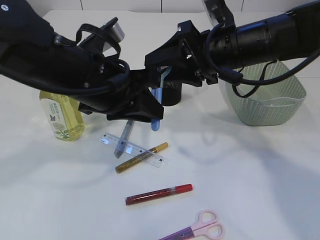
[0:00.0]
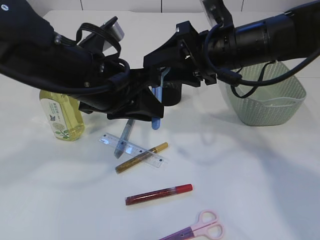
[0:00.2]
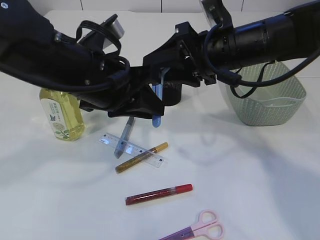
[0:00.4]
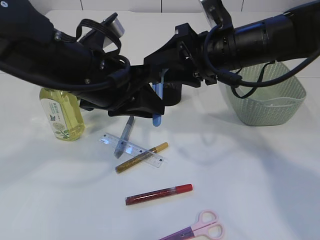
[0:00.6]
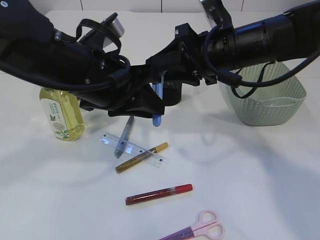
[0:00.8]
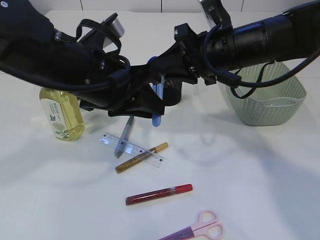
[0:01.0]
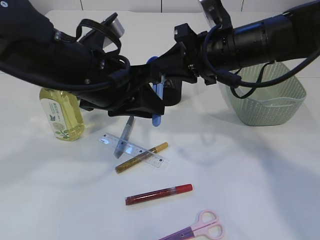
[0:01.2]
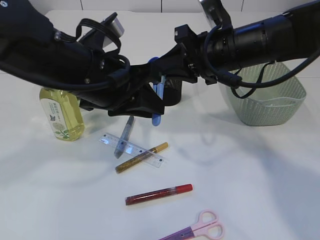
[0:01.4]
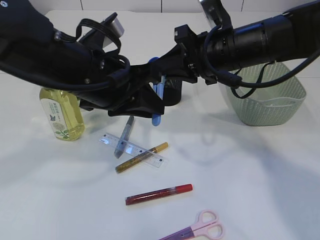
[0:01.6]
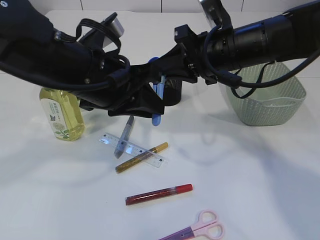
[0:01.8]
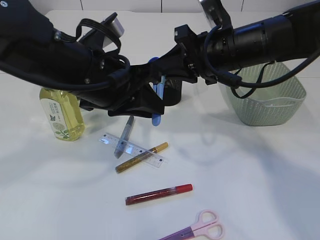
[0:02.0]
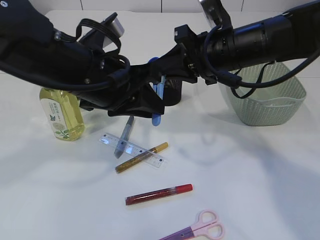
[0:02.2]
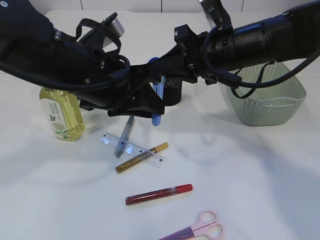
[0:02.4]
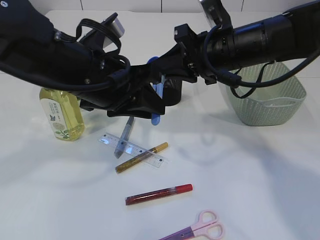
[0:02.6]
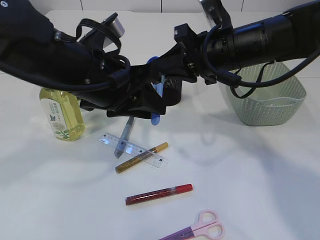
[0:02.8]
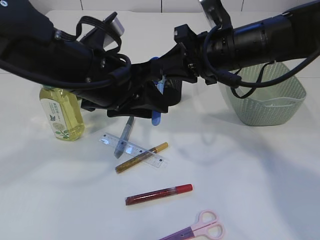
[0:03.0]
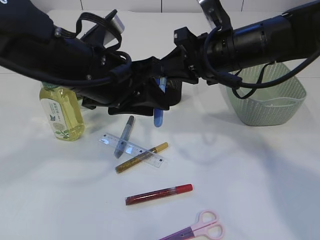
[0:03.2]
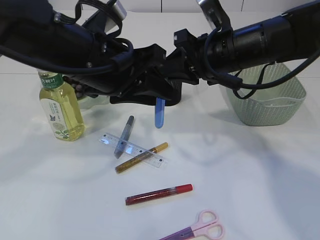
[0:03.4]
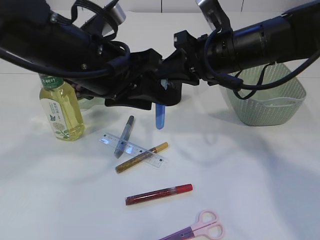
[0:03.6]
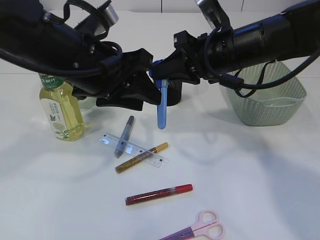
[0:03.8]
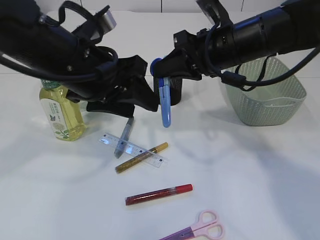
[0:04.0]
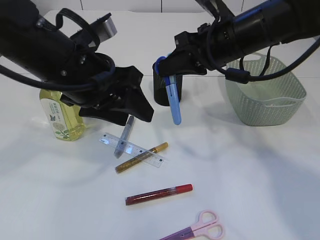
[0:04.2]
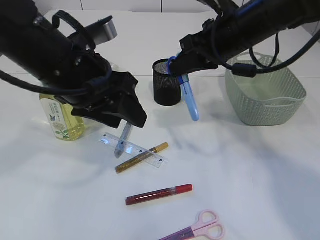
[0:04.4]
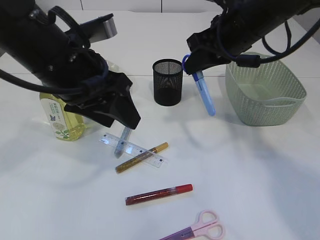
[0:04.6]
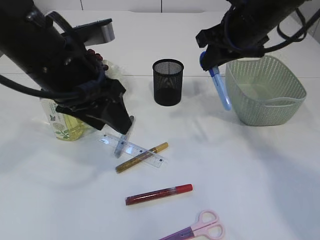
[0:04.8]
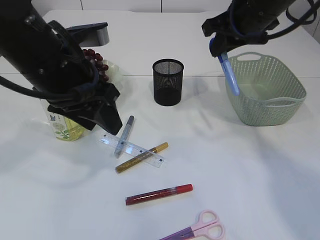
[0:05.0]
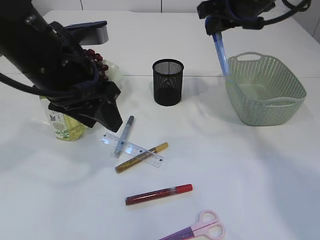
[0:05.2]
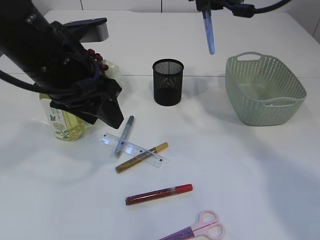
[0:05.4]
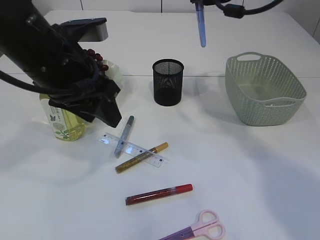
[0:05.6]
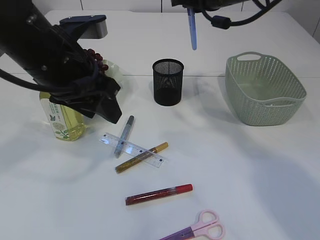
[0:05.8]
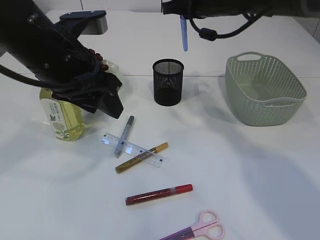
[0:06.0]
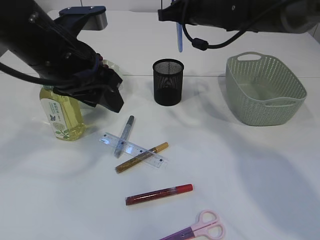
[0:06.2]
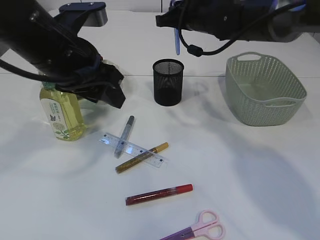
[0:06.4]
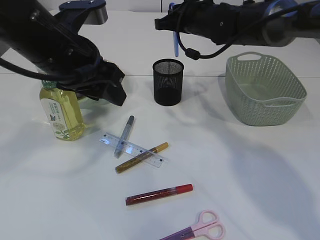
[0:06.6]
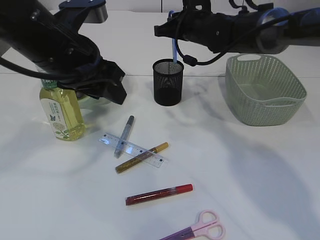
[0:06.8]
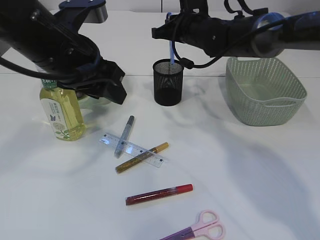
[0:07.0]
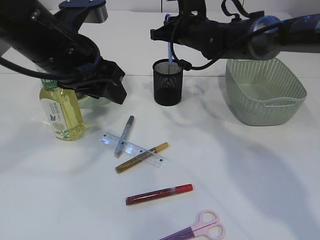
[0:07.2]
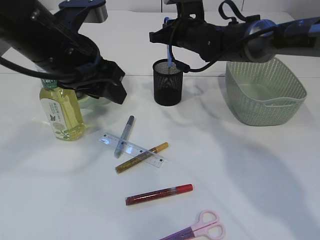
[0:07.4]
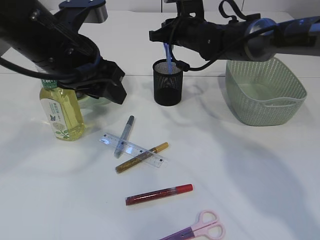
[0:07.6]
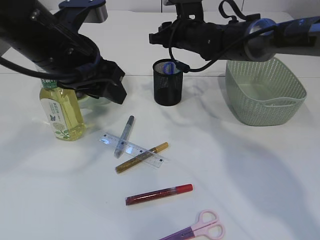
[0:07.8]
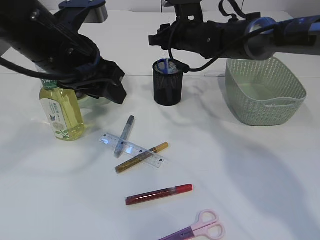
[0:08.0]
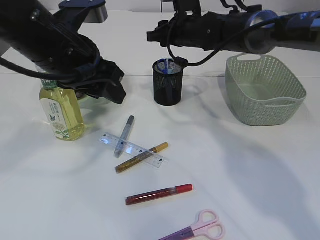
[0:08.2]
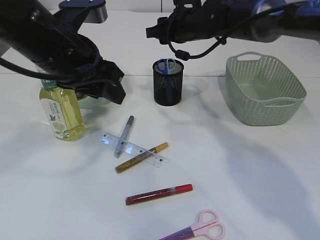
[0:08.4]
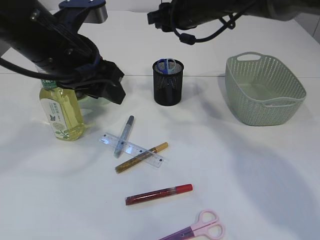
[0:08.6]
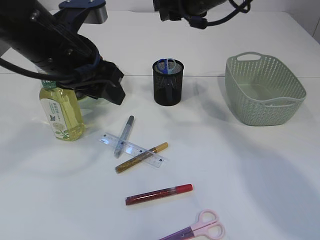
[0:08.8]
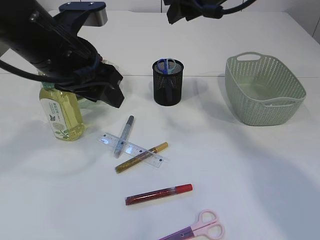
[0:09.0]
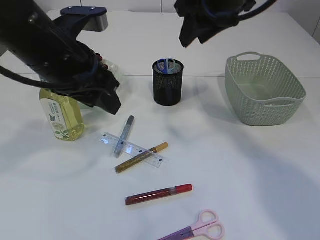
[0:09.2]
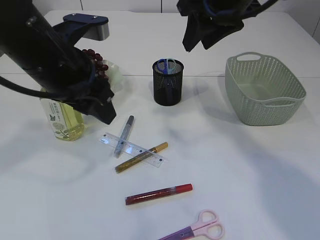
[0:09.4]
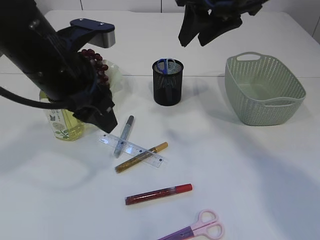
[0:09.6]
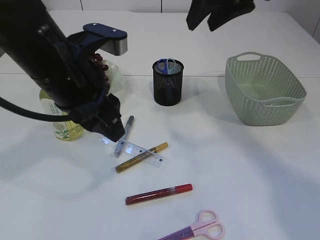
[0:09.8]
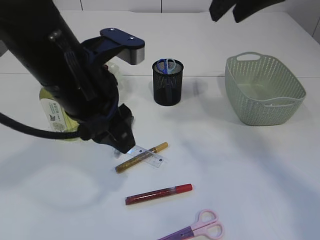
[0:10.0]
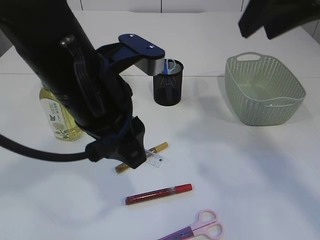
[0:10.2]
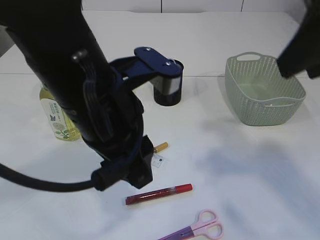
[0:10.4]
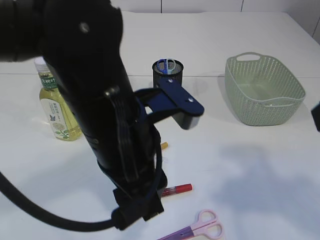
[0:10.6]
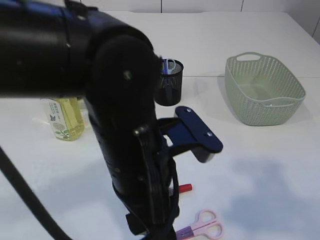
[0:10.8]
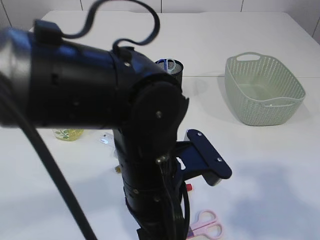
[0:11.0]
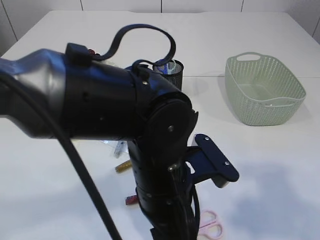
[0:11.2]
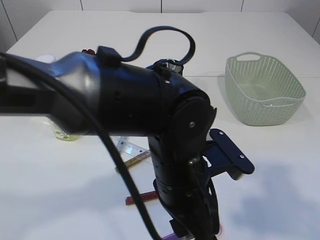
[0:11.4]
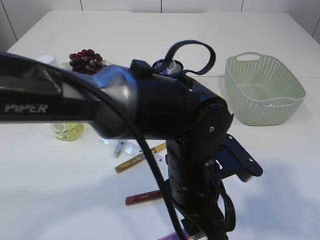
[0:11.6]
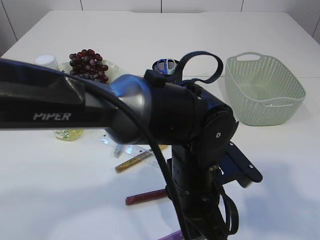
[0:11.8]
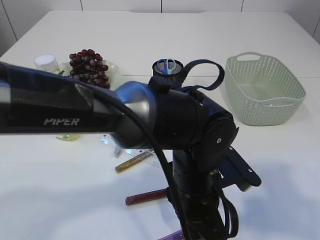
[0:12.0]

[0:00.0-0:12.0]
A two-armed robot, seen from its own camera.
Step, 0:00.0 to 0:04.6: Hand over the blue scissors.
Step, 0:04.8 to 0:08.4: Place the blue scissors into the pen holder.
0:00.0 to 0:01.6: The right gripper closes.
0:01.6 to 0:03.0: Both grippers stay put.
0:03.0 to 0:04.4: The left gripper opens its fingers.
0:04.4 to 0:06.0: The right gripper is displaced forward by roughly 10 cm.
0:06.0 to 0:07.6: The right gripper goes about 10 cm downward.
0:07.6 to 0:09.0: The right gripper shifts roughly 15 cm upward and backward.
0:09.0 to 0:10.4: The left gripper goes some 10 cm backward and to the right; the right gripper shifts roughly 20 cm backward.
0:10.4 to 0:12.0: The left gripper travels downward and to the right by some 20 cm, while the right gripper shifts roughly 10 cm backward.

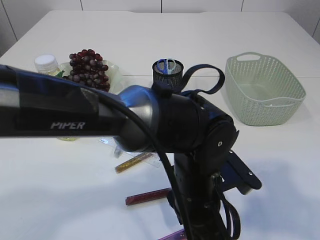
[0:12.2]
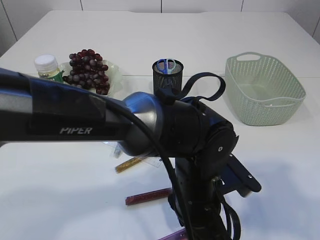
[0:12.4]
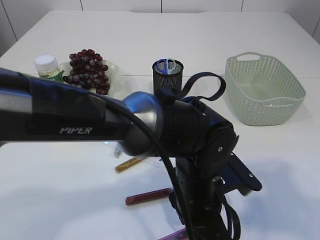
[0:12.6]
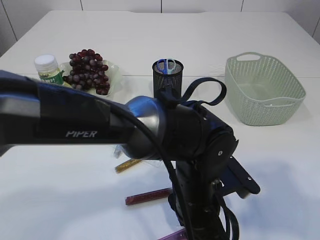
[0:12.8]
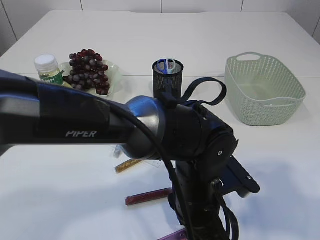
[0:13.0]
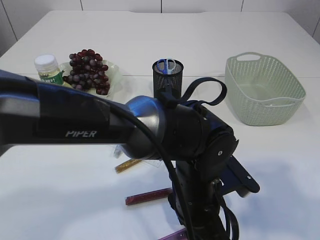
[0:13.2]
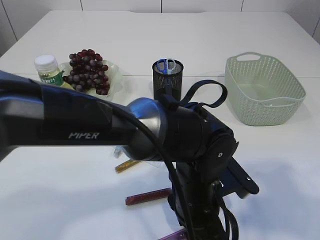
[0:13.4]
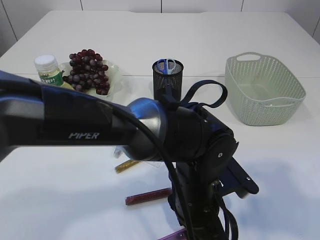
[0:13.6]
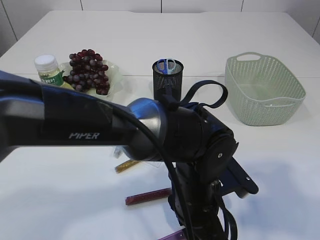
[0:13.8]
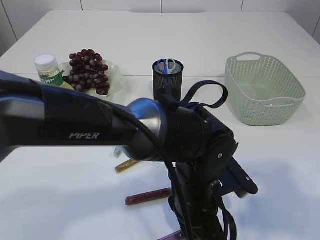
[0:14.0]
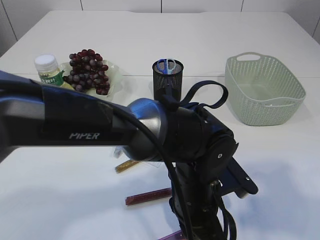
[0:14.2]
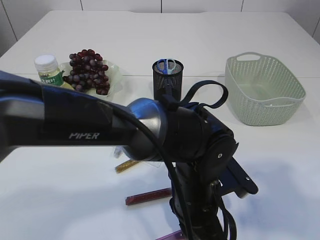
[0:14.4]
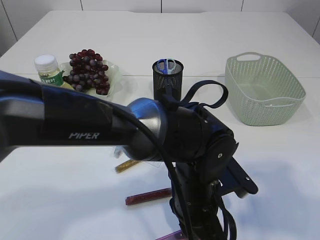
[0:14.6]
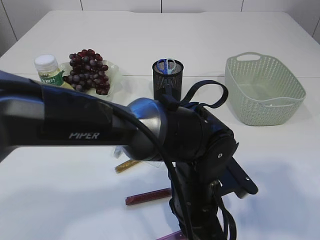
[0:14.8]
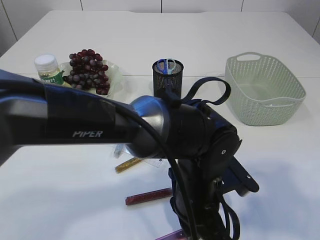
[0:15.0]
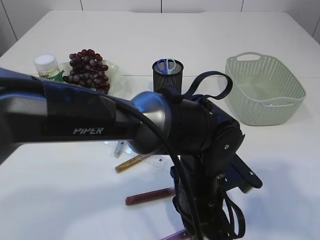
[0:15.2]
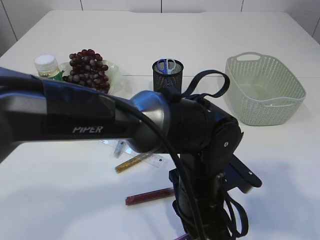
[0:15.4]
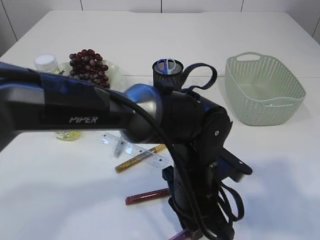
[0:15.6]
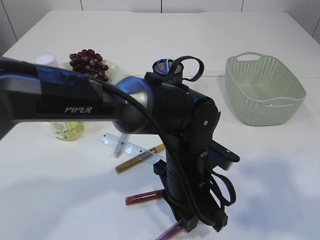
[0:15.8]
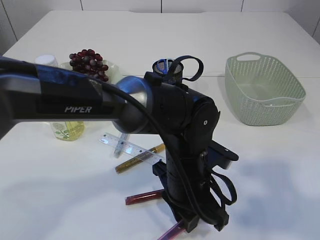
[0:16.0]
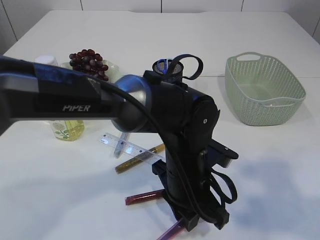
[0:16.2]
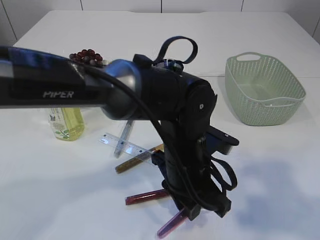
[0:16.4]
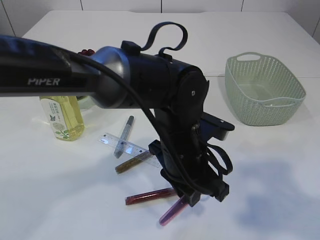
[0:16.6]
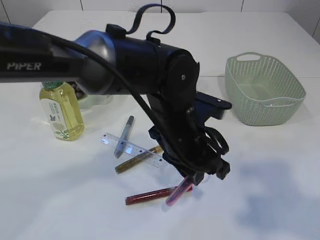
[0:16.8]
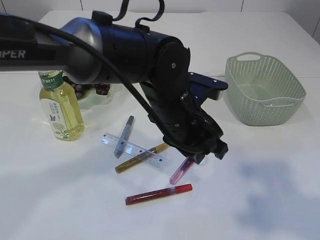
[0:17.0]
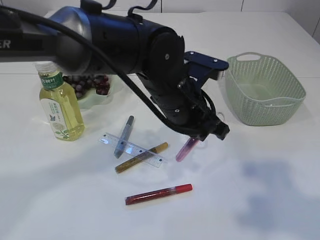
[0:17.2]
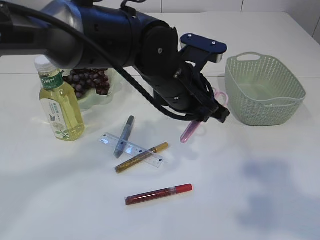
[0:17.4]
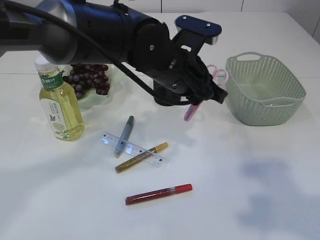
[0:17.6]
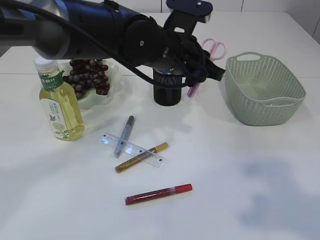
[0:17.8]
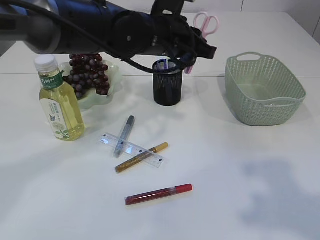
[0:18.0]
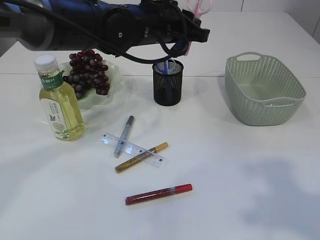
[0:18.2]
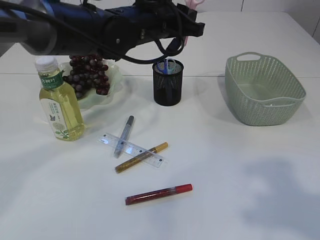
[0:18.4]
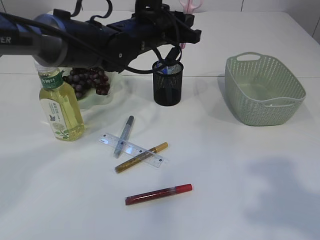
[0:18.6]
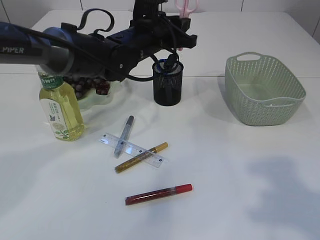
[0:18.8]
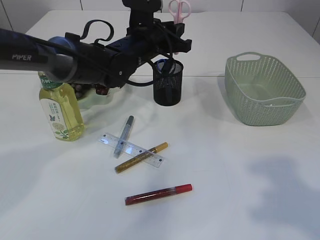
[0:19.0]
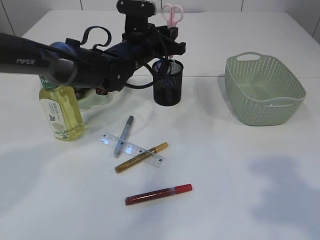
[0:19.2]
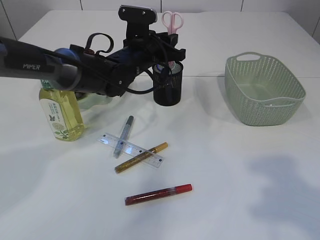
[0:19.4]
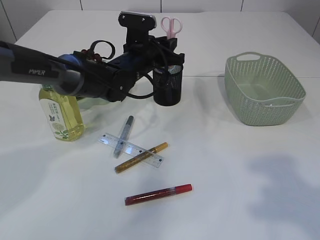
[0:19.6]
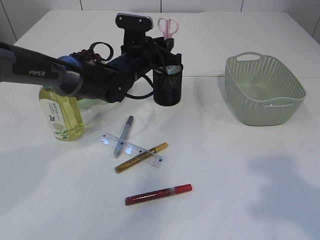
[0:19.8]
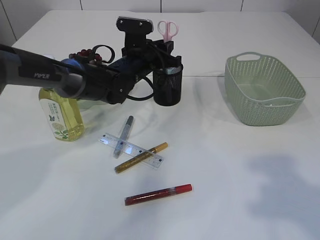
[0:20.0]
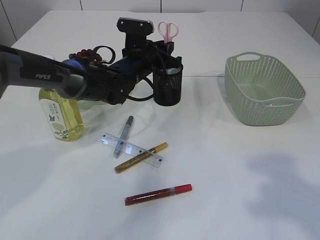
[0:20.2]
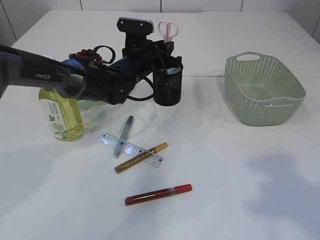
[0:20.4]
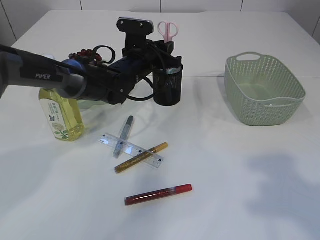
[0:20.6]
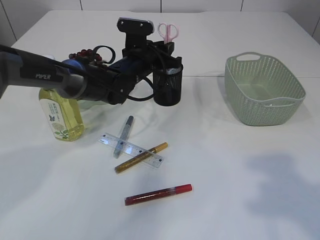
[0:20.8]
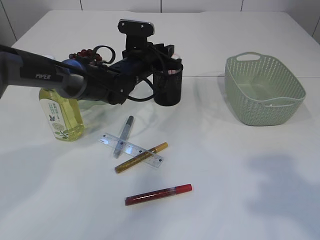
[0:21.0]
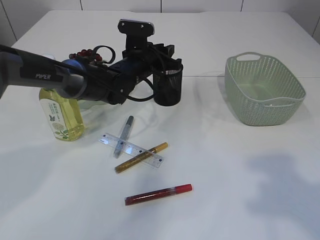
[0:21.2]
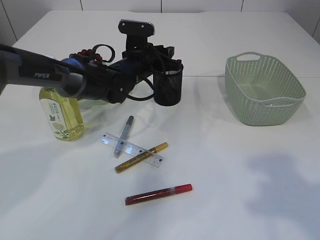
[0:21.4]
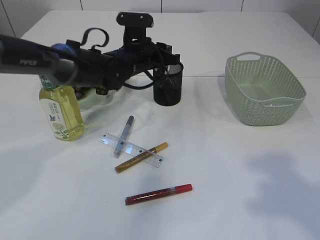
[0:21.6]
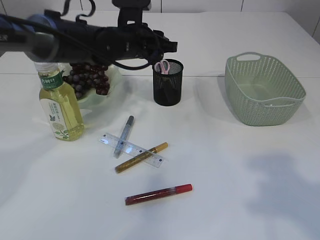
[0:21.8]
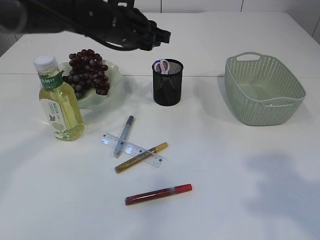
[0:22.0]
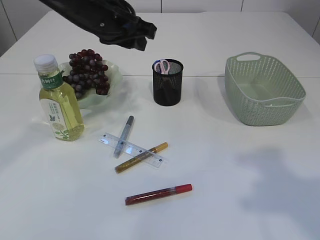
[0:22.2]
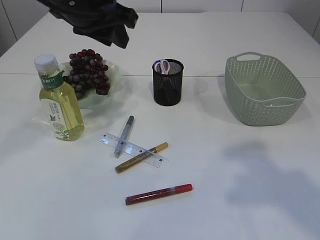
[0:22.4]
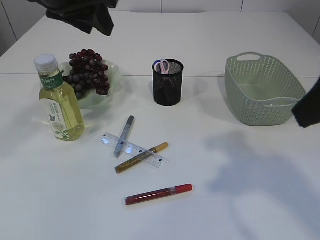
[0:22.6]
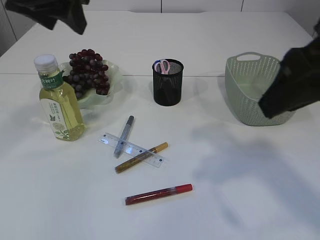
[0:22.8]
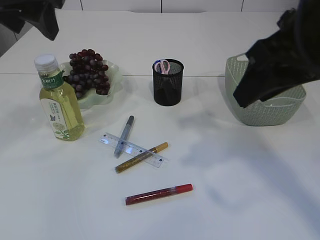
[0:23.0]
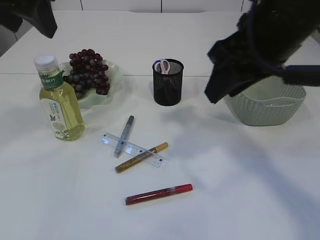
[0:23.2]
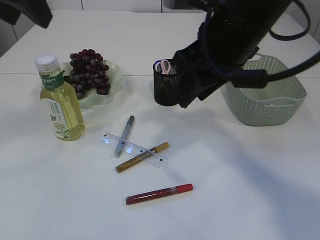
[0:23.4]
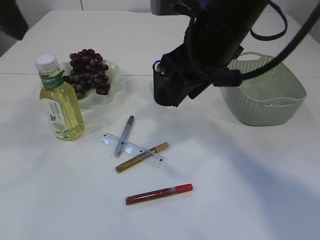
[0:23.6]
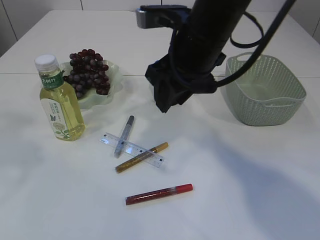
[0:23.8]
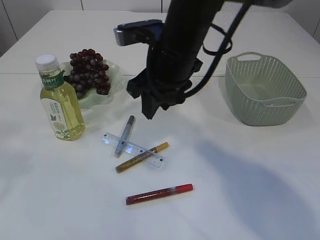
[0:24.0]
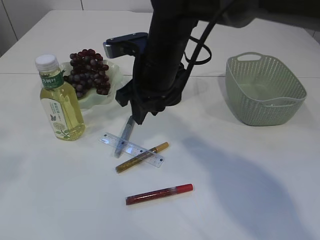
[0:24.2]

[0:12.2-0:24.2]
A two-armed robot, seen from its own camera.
Step, 0:12.2 to 0:16.6: pick up the pink scissors.
Step, 0:16.8 to 0:22.0: Place the pink scissors into the pen holder.
0:12.2 to 0:13.8: There are only small adjustments of the grippers.
0:13.8 to 0:15.2: Neither gripper changes place.
0:15.2 to 0:16.6: The left gripper ends up approximately 5 cm from where it was.
0:16.6 to 0:18.2: The left gripper travels forward and upward by some 20 cm.
0:18.2 to 0:19.8: The left gripper goes roughly 10 cm downward and forward.
0:19.8 to 0:21.2: Both grippers stay put.
0:21.2 to 0:22.6: The right gripper shifts approximately 5 cm forward; the left gripper heads upward and backward, covering approximately 25 cm.
0:22.6 to 0:24.2: The right gripper moves forward, to the left and downward, some 30 cm, while the left gripper shifts some 20 cm backward and to the left.
